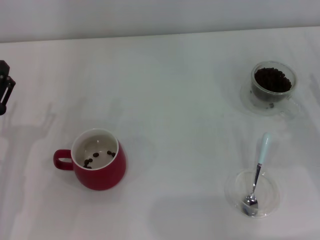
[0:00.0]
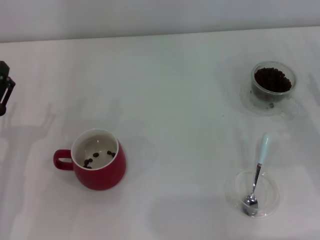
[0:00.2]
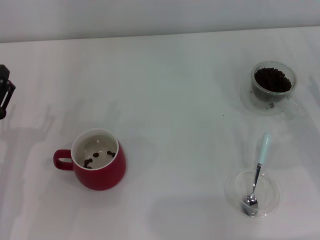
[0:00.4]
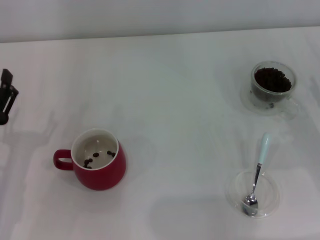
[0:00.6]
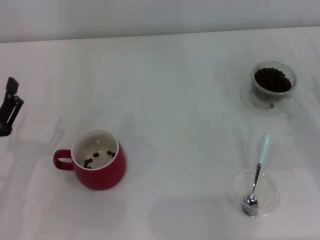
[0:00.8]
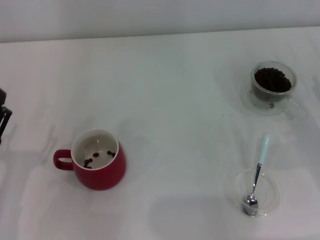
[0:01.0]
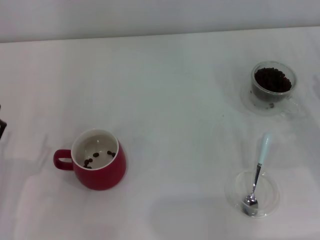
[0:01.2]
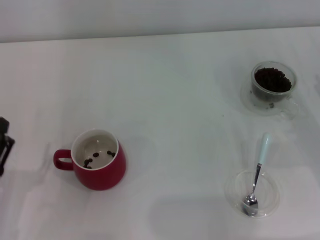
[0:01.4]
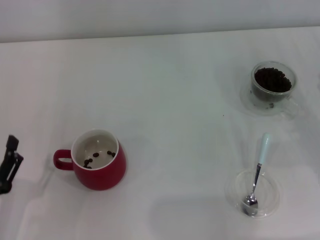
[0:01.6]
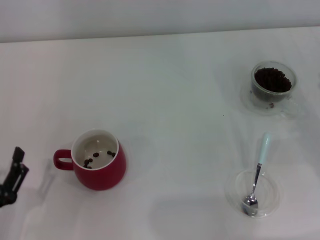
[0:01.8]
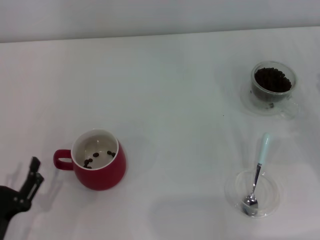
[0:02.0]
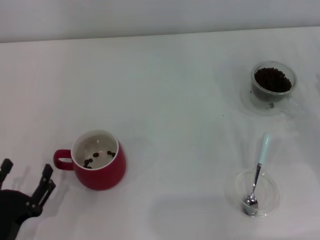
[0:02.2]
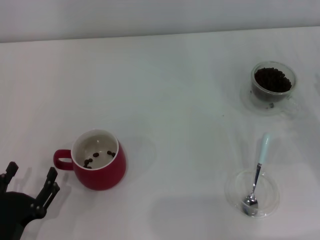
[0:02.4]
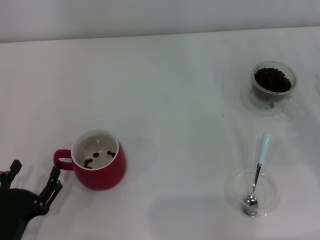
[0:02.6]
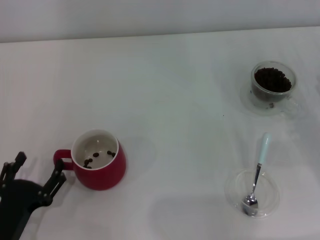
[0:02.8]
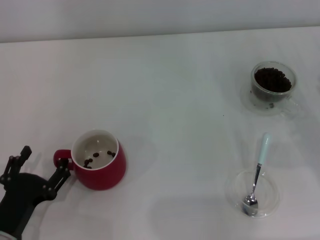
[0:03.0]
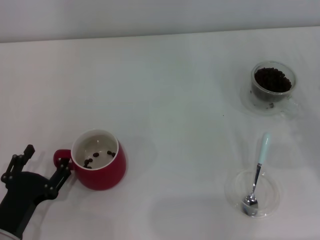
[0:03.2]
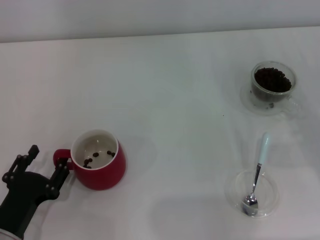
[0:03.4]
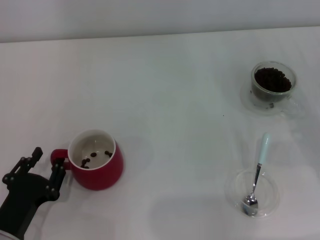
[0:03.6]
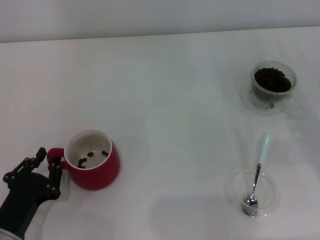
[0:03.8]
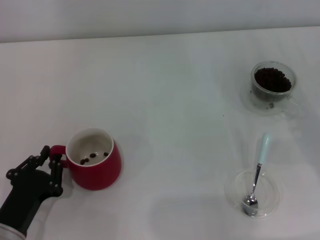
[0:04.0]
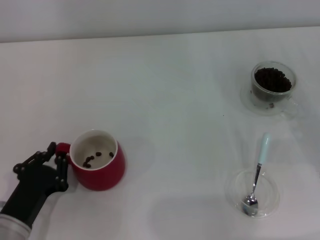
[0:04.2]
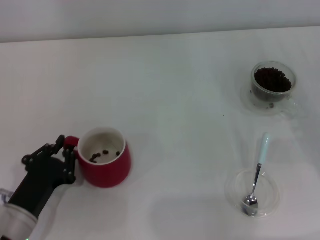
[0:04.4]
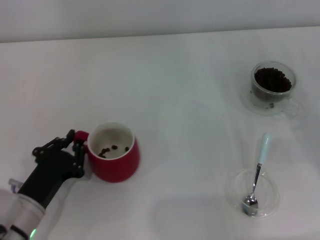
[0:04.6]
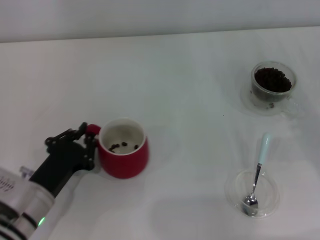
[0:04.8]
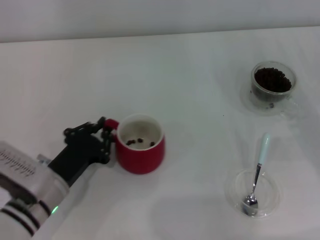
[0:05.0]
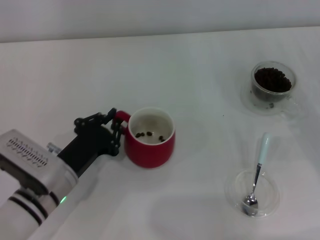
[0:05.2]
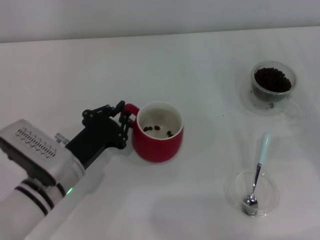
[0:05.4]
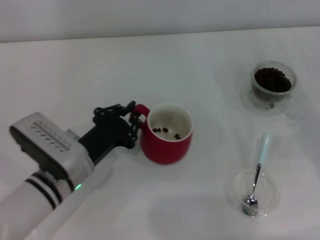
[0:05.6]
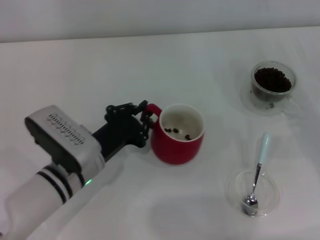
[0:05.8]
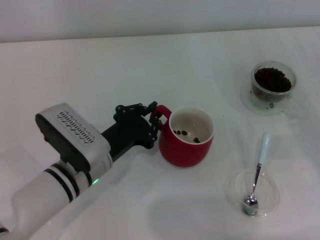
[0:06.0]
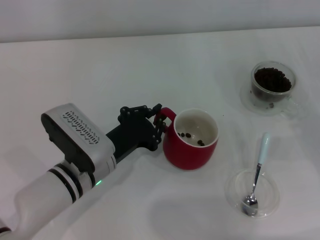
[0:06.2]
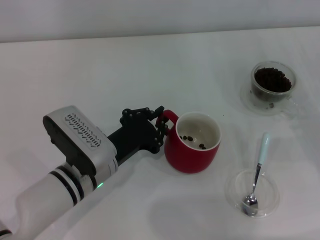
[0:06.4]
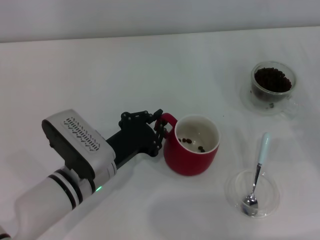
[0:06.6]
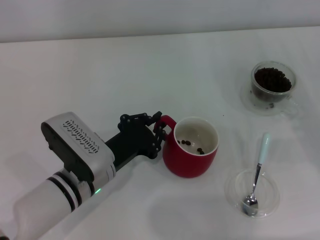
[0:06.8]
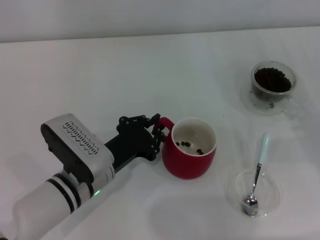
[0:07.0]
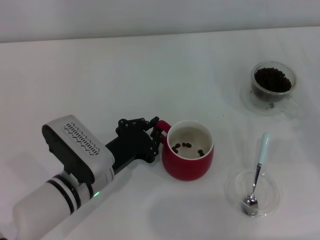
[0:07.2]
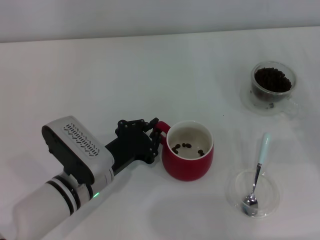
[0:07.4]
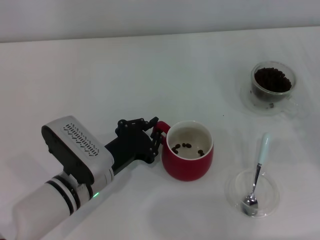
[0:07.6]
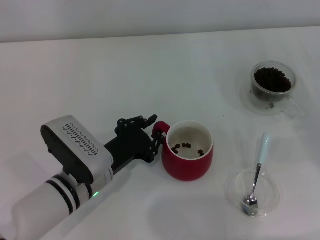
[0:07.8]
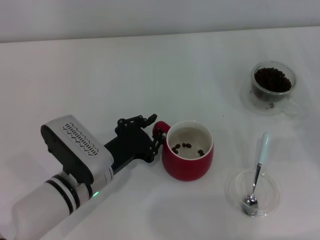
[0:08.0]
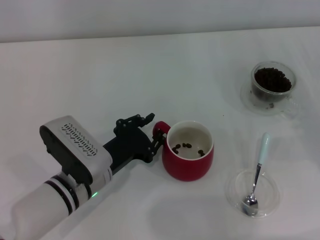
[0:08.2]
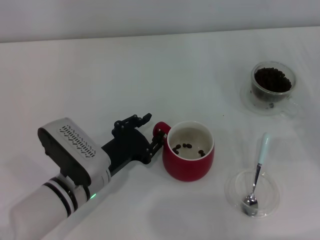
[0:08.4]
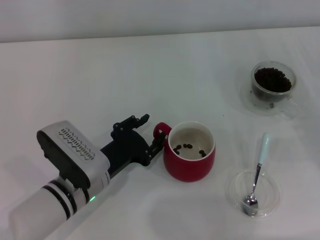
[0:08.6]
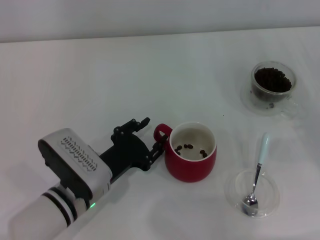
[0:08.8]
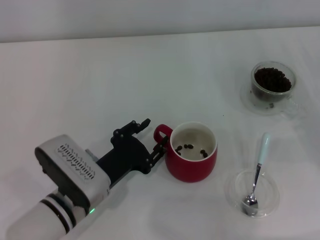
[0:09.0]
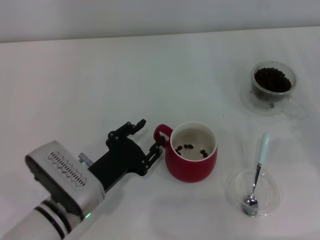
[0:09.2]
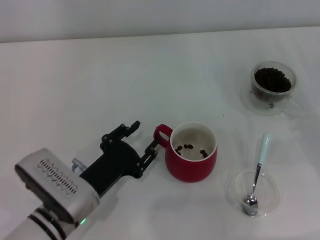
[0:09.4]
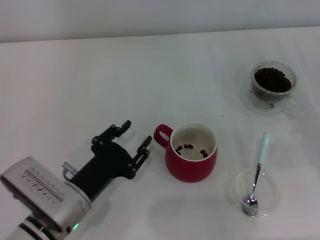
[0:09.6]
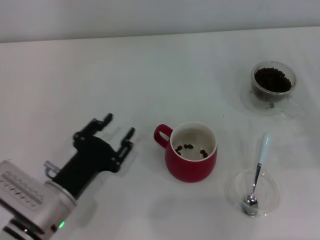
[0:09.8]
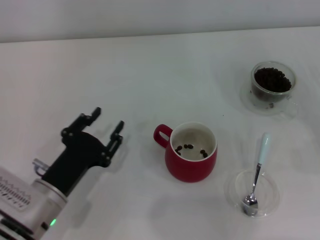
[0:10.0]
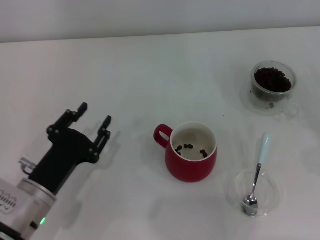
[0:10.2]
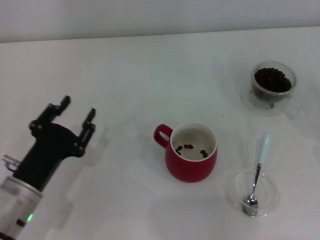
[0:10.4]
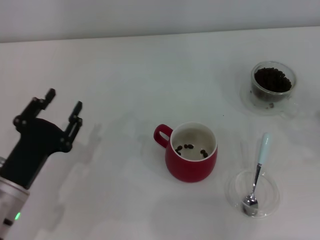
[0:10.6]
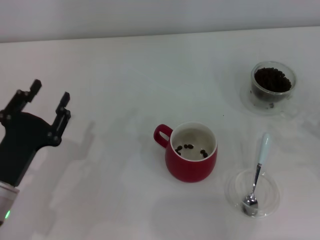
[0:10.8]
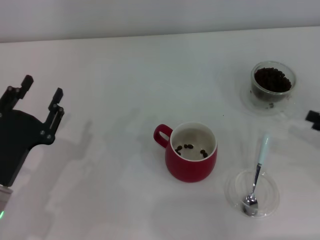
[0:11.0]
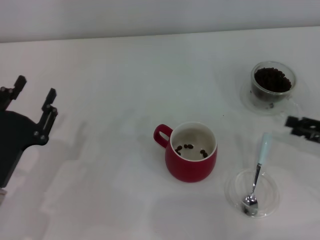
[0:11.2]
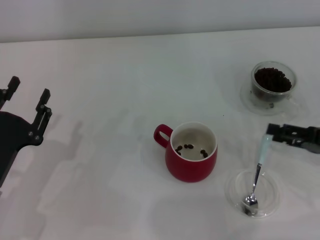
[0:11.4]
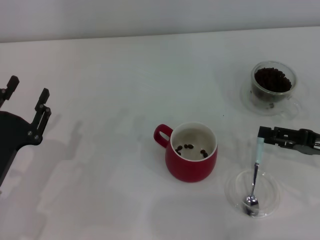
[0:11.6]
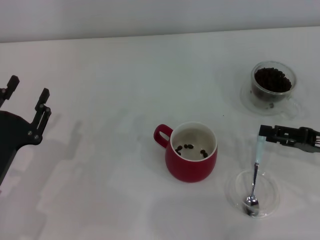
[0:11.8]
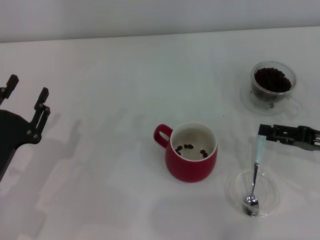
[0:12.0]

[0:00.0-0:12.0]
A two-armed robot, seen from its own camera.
Task of the whole recording: Use a blue spoon to take out the coffee beans from the glass and pour them into the red cup.
Step, 0:00.0 to 0:09.2: Move the cup to the center of view with the left gripper.
0:00.0 to 0:01.6: The left gripper moves backward, approximately 10 cm.
0:01.6 to 0:03.0: The grippers move only a little.
0:03.0 to 0:04.4: The left gripper closes.
0:04.4 to 0:06.0: The left gripper is displaced to the right and forward by roughly 15 cm.
0:06.0 to 0:07.6: The grippers stay close to where they were, moving slightly.
0:07.6 to 0:09.0: The left gripper opens its fingers.
0:09.0 to 0:10.4: The left gripper travels to the left by approximately 10 cm. Meanwhile the right gripper ends up about 5 cm from where it was.
0:10.4 to 0:12.0: The right gripper shifts approximately 10 cm to the left.

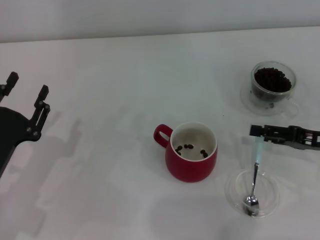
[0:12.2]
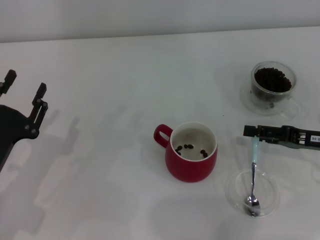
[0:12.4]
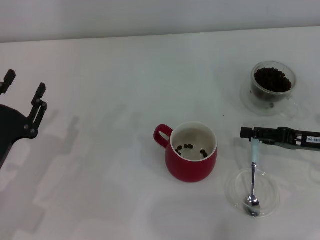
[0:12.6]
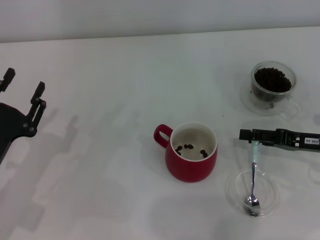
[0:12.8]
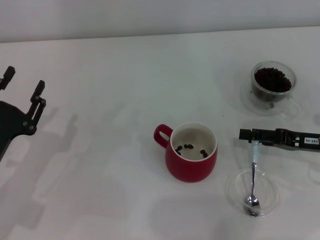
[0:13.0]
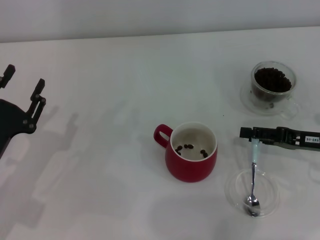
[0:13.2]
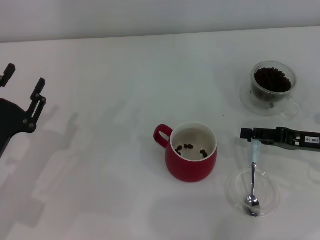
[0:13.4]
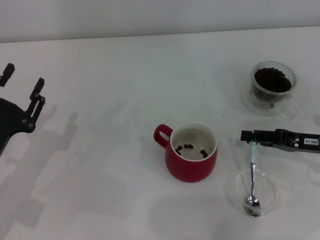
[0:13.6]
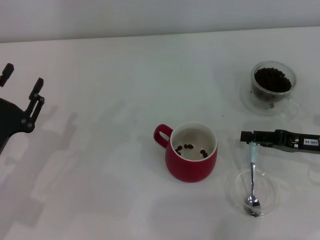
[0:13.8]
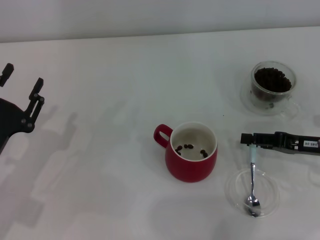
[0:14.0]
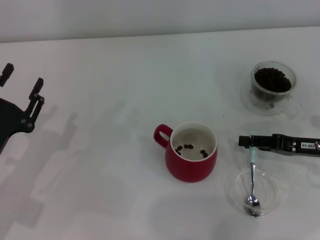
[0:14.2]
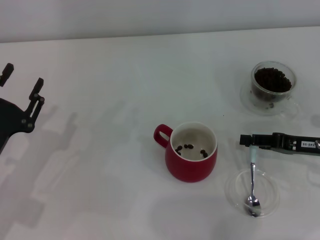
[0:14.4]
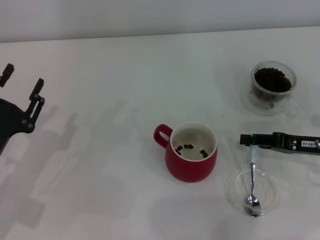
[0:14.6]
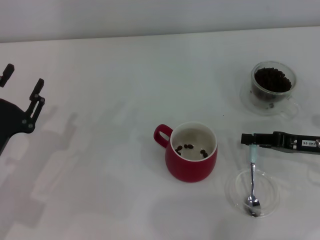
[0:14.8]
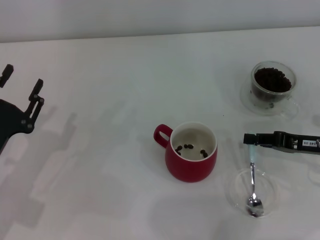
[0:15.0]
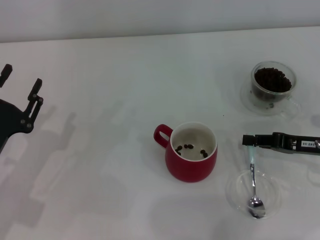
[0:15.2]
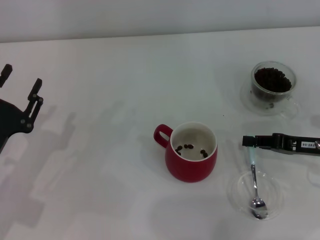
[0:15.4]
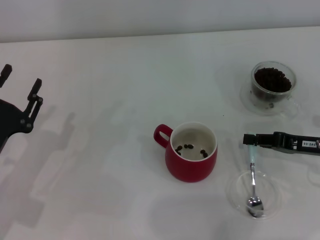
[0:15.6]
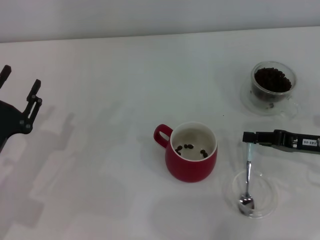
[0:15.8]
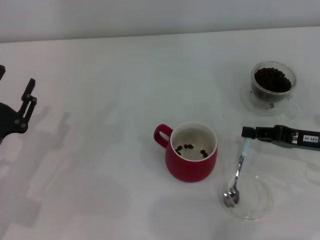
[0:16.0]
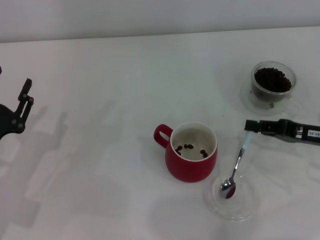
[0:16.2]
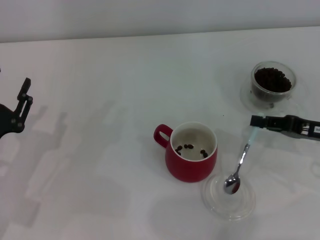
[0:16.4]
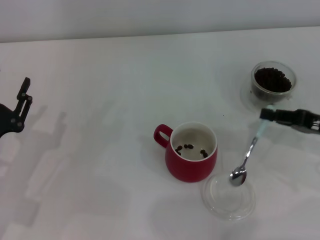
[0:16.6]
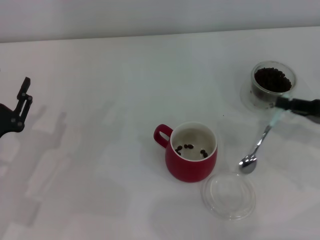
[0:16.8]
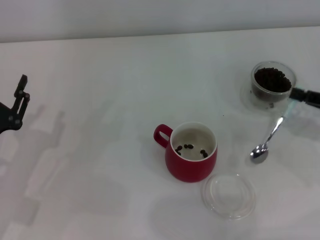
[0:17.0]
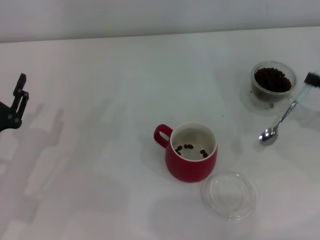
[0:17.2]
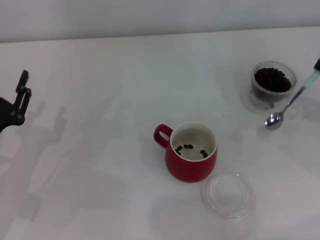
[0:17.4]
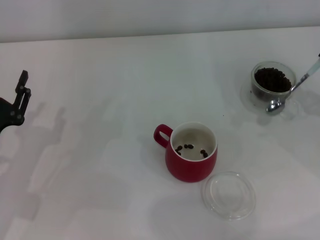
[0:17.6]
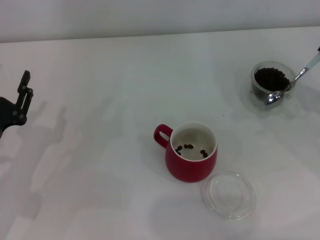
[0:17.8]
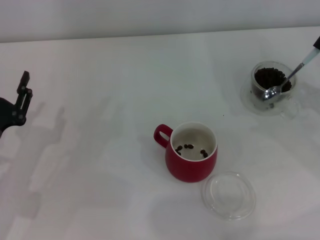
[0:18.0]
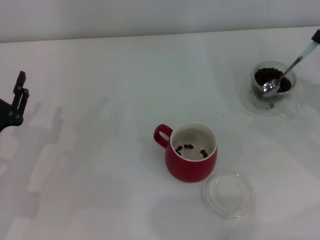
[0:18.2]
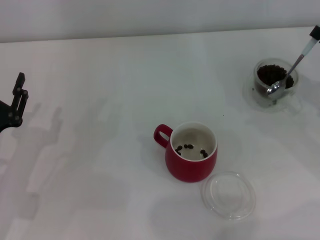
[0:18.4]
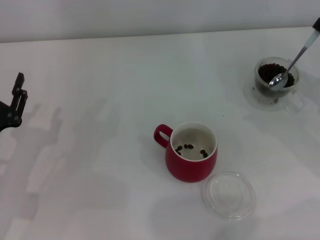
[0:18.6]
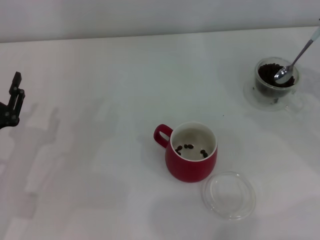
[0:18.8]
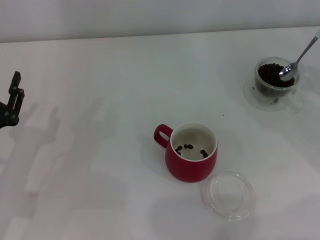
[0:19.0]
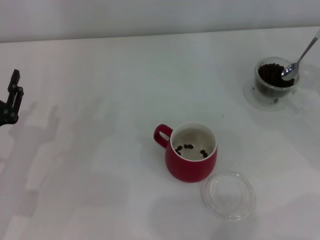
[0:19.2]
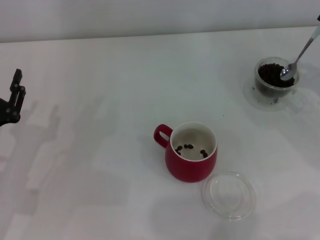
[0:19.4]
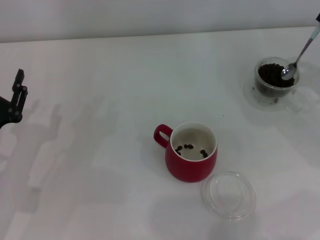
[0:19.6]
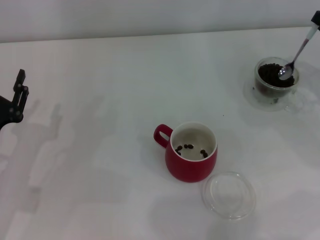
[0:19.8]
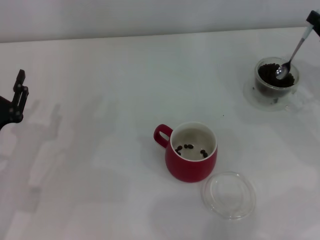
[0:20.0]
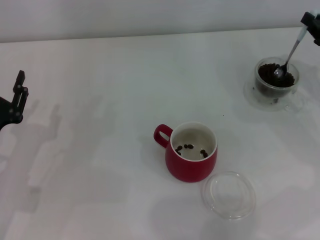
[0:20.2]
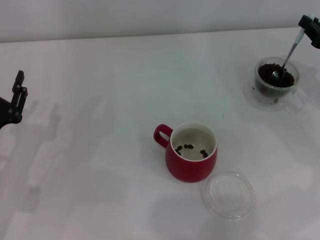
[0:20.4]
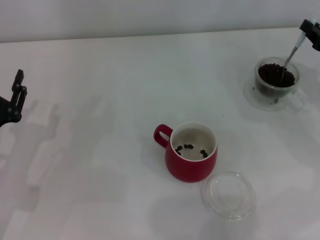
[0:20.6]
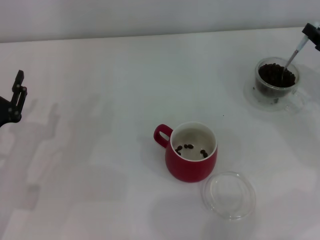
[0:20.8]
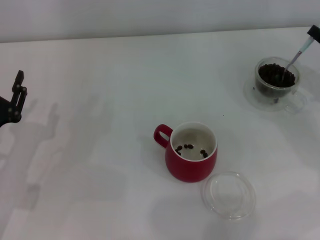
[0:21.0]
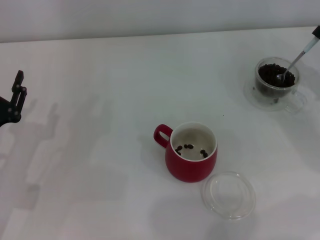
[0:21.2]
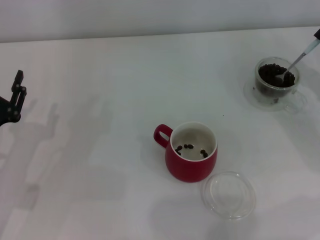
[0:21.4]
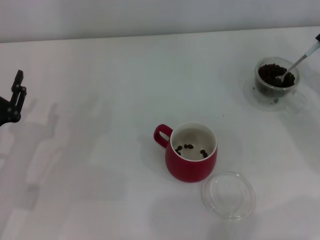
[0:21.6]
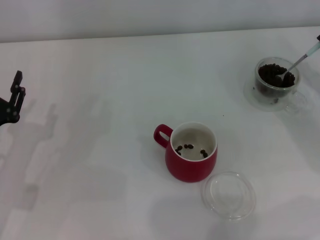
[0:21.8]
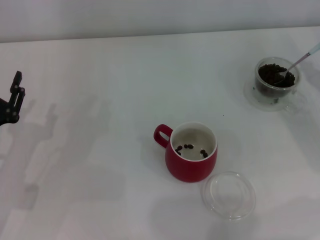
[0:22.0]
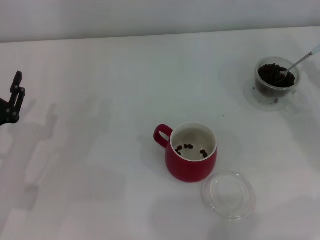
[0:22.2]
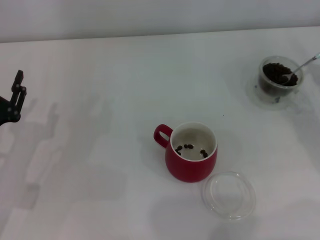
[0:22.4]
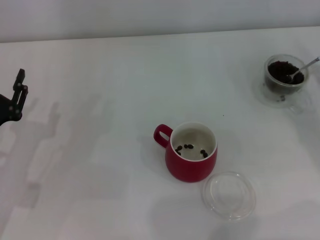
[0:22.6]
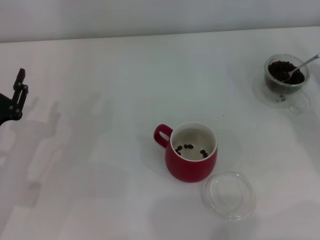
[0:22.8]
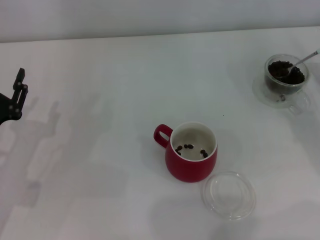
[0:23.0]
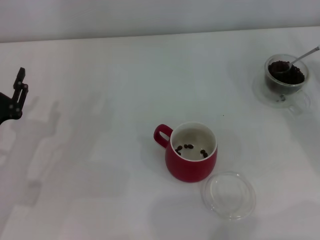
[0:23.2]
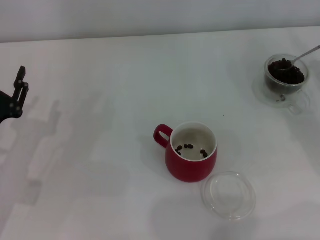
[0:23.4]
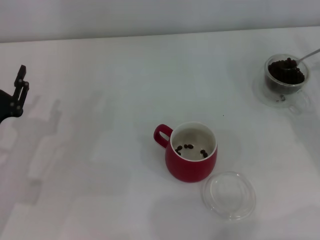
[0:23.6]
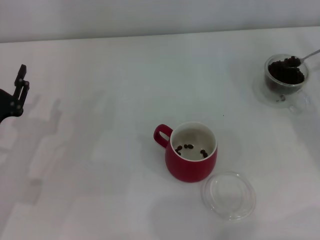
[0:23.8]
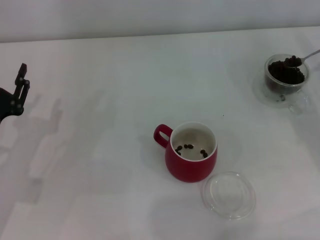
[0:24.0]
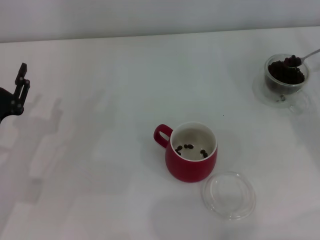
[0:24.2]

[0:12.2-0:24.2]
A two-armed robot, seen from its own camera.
Task of the whole recording: Use a blue spoon to take out the coffee beans from the glass and pour them into the red cup.
Step, 0:12.2 to 0:16.6: Pick up the spoon with the right gripper.
0:12.2 to 0:13.8: The right gripper closes.
0:13.8 to 0:15.2: The right gripper closes up.
0:15.2 to 0:16.6: The grippers stay close to where they were, moving slightly.
0:16.6 to 0:18.2: The right gripper shifts by roughly 5 cm.
0:18.2 to 0:19.8: The grippers make only small movements.
0:22.6 to 0:24.2: The grippers move only a little.
